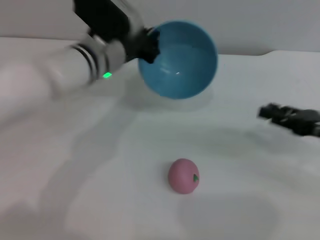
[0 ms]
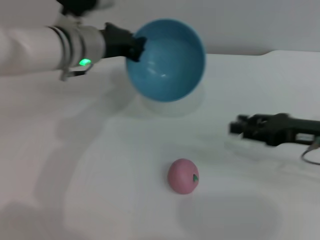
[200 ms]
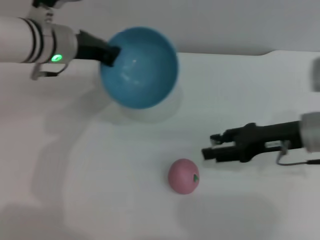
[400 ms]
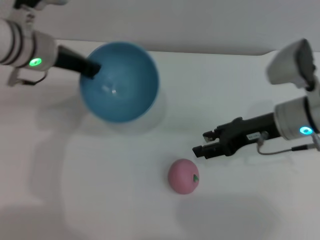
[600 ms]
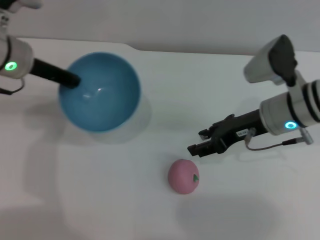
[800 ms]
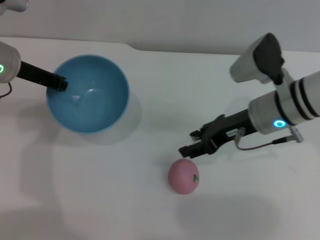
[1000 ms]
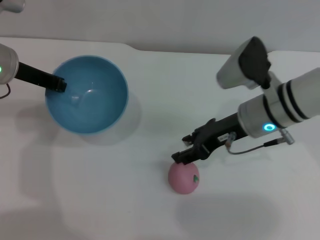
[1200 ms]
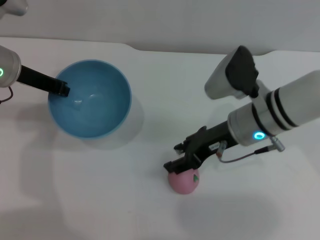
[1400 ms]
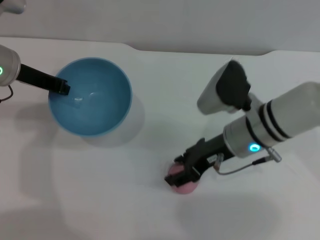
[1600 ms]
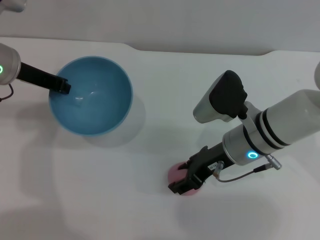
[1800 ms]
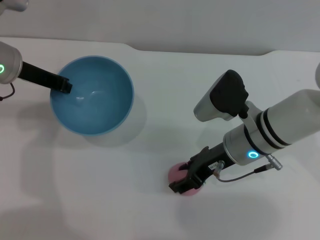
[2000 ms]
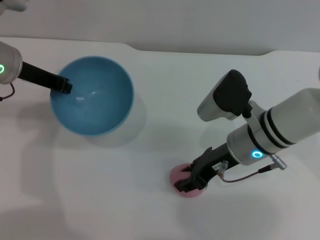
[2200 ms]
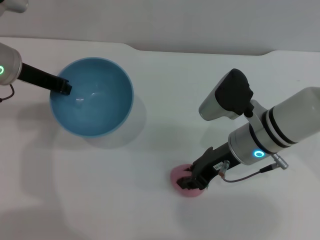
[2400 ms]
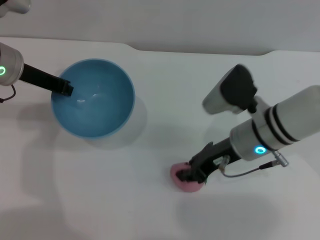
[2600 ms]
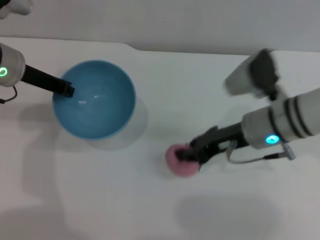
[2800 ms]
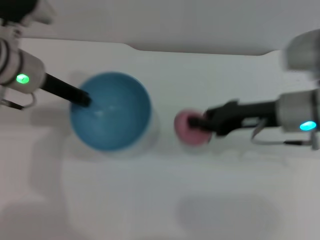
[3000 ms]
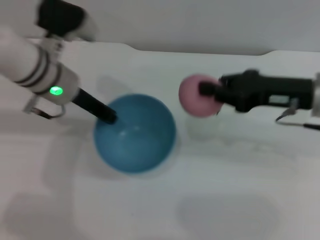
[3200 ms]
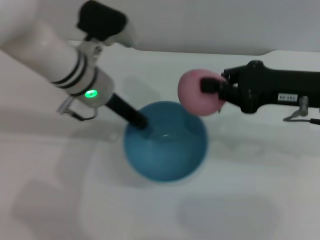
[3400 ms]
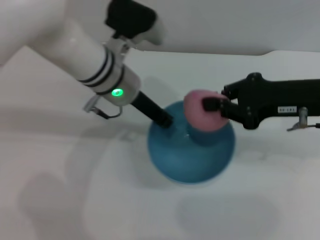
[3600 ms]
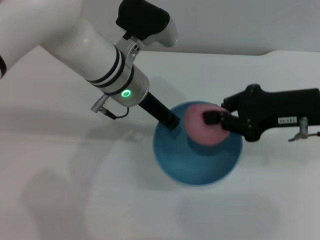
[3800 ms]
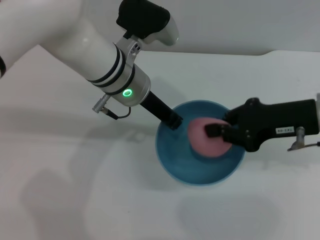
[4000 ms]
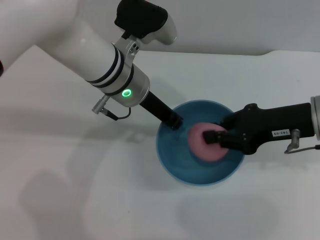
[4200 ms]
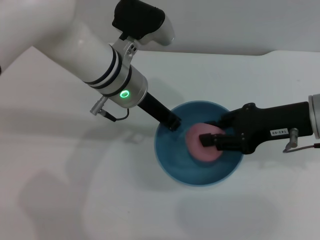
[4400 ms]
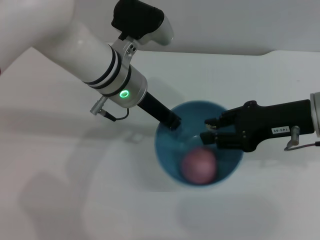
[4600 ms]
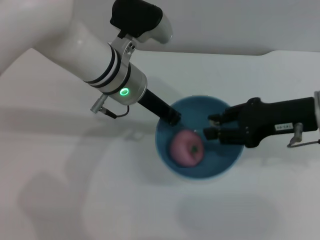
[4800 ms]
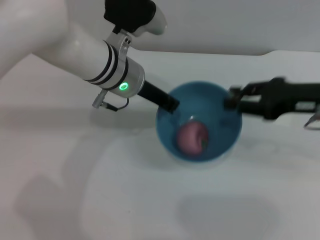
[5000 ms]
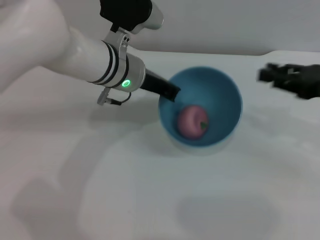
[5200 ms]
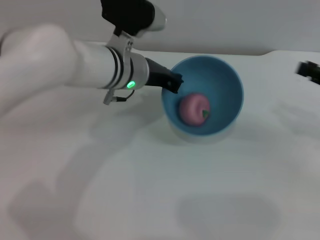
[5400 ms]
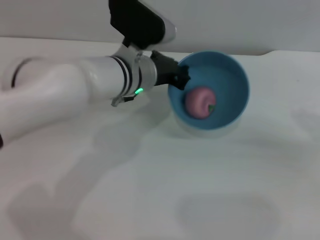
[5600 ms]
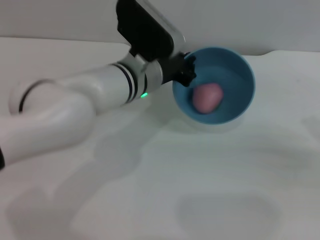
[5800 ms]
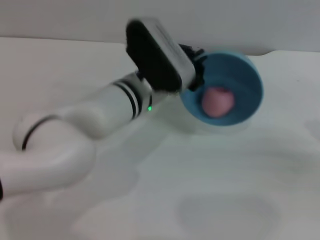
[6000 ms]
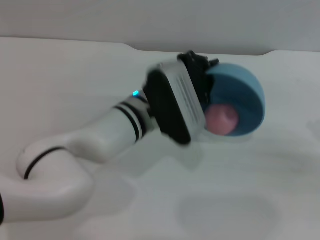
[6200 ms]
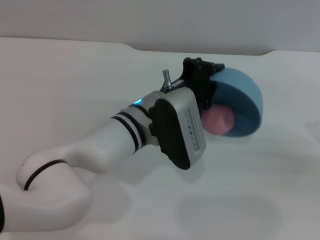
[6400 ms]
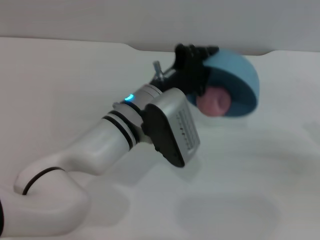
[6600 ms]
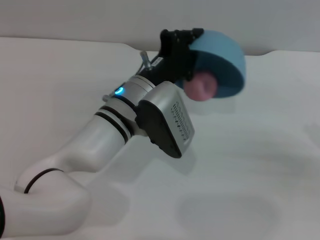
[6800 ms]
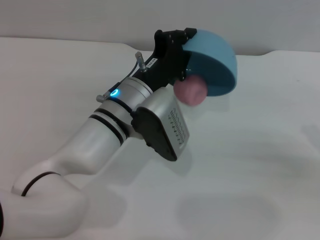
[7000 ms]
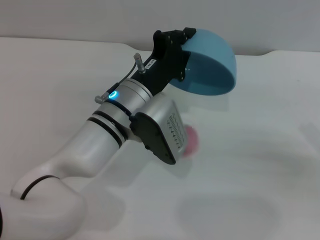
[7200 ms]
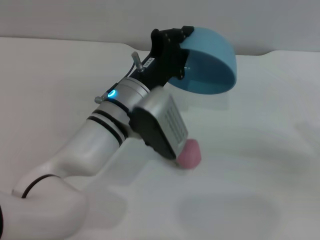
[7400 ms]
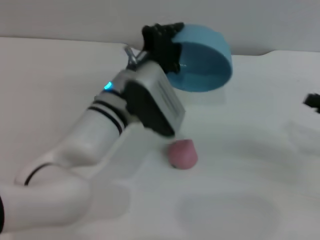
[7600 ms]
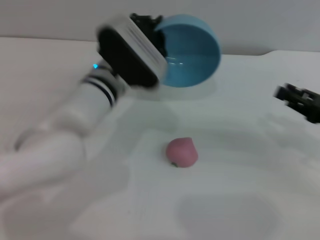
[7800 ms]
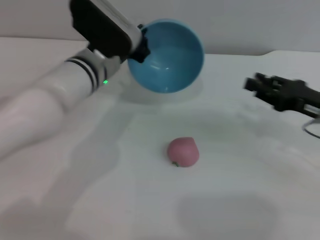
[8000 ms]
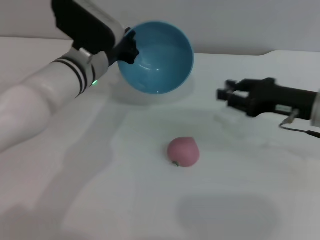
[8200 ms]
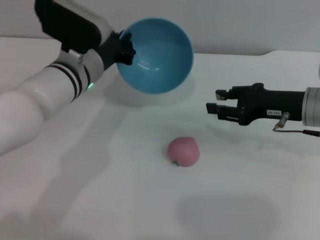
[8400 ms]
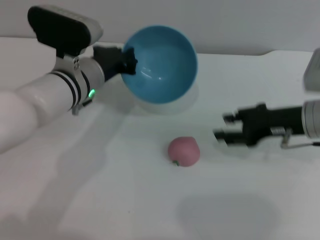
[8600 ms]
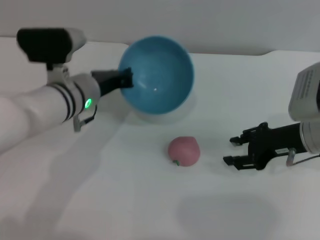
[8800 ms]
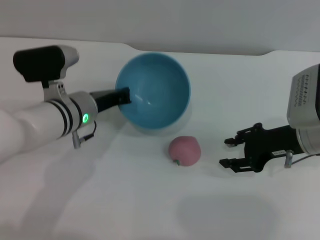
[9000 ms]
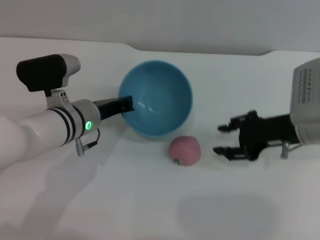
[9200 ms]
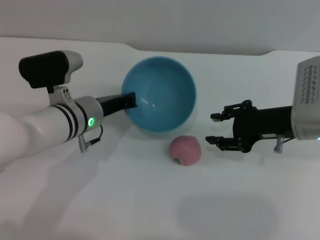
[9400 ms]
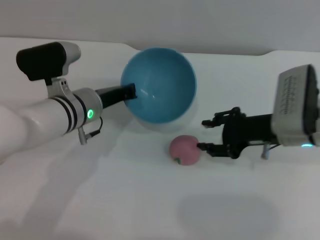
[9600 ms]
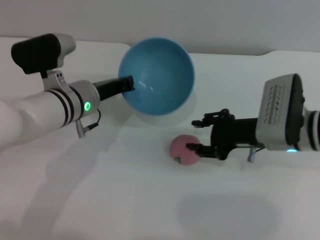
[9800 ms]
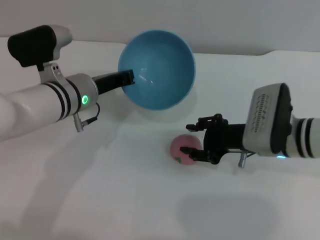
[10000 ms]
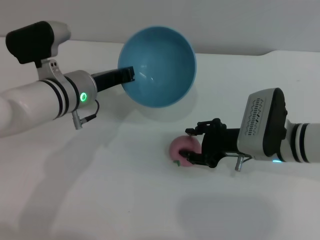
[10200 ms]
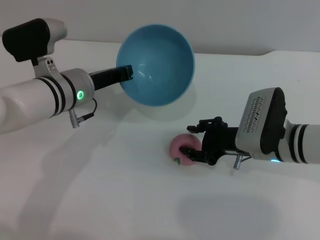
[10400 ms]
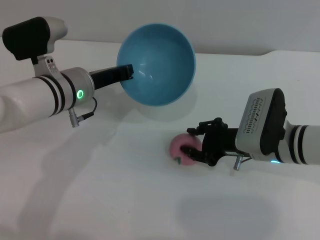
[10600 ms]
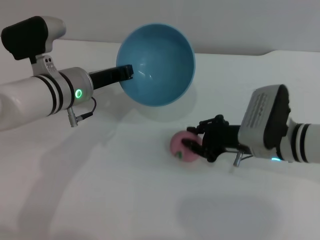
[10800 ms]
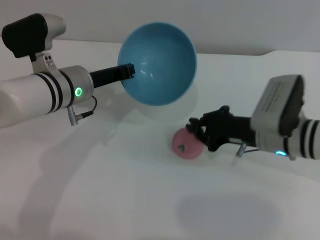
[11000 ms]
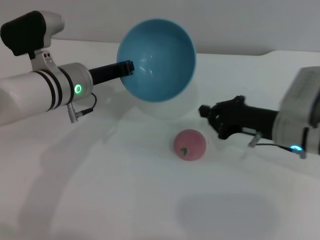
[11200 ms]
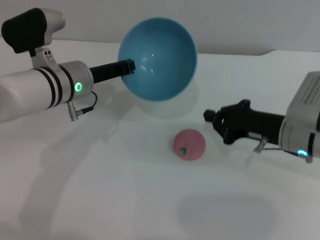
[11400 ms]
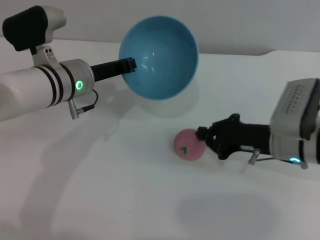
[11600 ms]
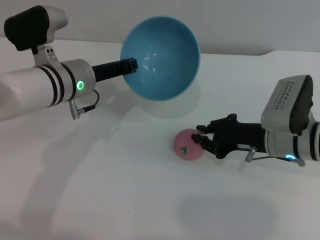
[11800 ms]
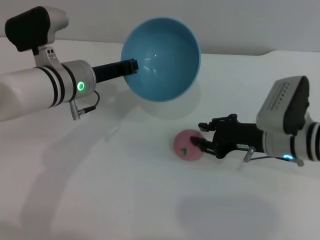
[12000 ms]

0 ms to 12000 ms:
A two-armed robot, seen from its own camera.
Task of the whole recording: put the peach into the blue bowl and pour it out repeatedly.
Step, 0 ms to 2800 ms: Pick up the peach with the right gripper.
Step, 3000 ms to 4800 ms: Place the peach into the bowl.
Step, 5000 ms to 7600 ms: Pour the peach out of bowl.
0 ms to 1600 ms: Both grippers move to the left, approximately 15 cm.
1600 ms to 3000 ms: The right gripper is displaced to the right by some 10 cm, and closes its fingers.
3000 ms to 4400 ms: The left gripper travels to the right by approximately 15 cm.
4400 ms to 6000 ms: The left gripper moves some 5 cm; the right gripper travels to the right and backward by about 20 cm.
7600 ms to 9000 ms: The left gripper moves to the left, roughly 10 cm; the right gripper heads to the left and forward, covering roughly 15 cm.
9000 ms to 10400 ms: The right gripper heads to the left, covering about 5 cm.
10400 ms to 12000 ms: The right gripper closes its fingers.

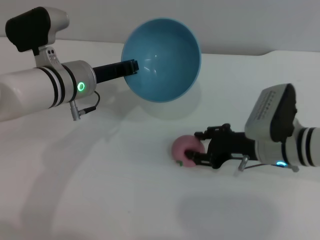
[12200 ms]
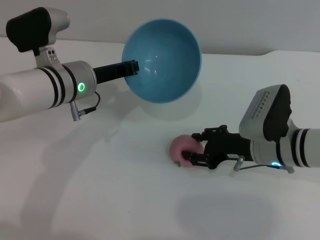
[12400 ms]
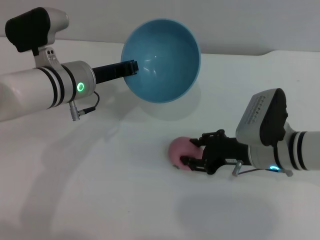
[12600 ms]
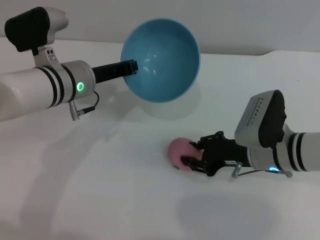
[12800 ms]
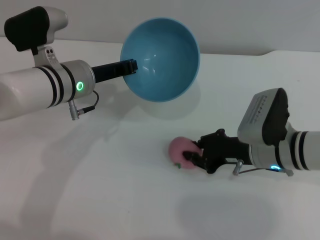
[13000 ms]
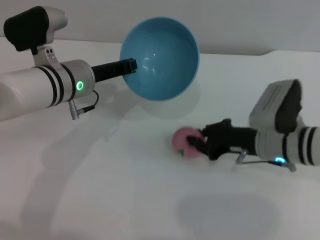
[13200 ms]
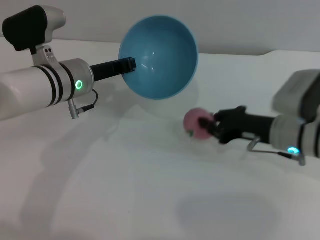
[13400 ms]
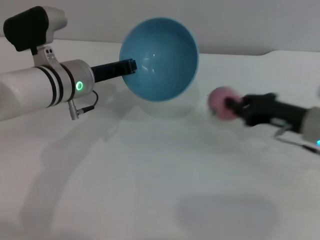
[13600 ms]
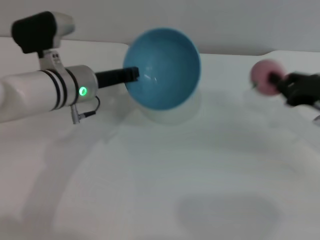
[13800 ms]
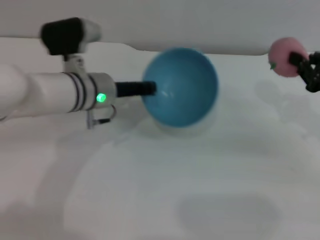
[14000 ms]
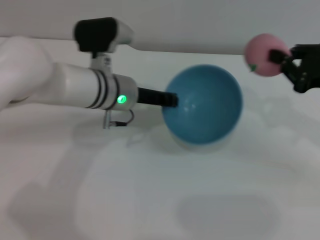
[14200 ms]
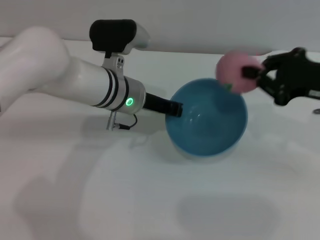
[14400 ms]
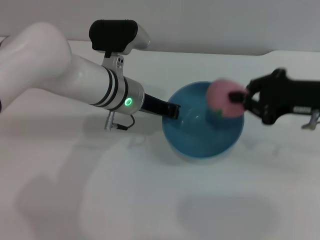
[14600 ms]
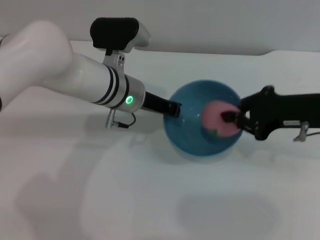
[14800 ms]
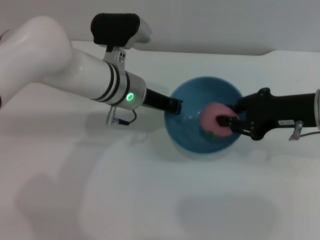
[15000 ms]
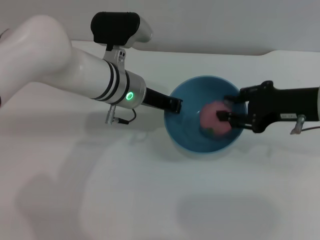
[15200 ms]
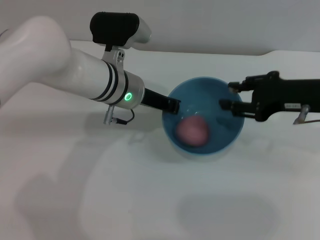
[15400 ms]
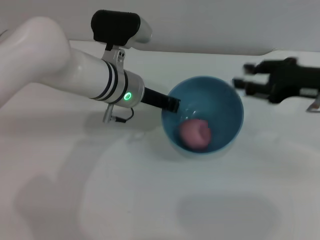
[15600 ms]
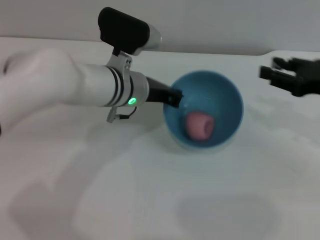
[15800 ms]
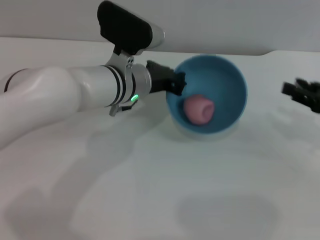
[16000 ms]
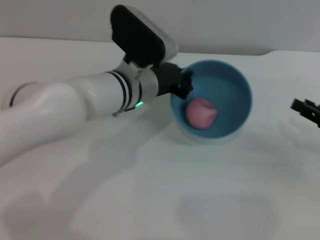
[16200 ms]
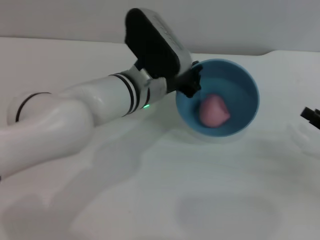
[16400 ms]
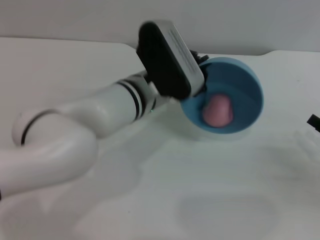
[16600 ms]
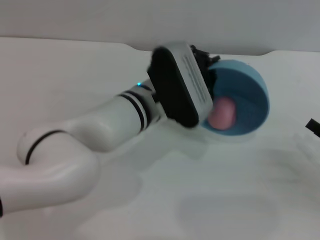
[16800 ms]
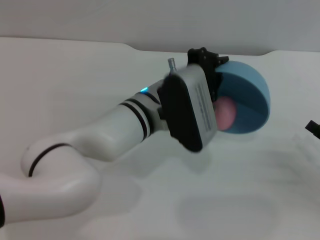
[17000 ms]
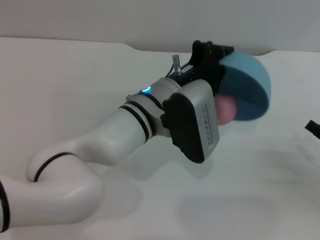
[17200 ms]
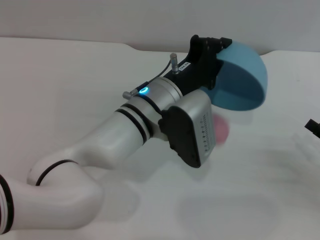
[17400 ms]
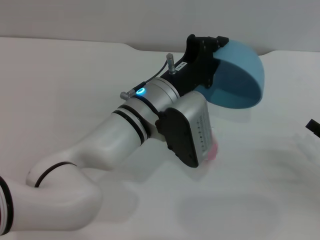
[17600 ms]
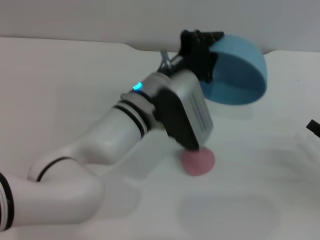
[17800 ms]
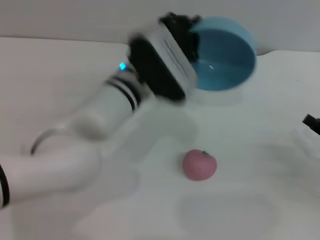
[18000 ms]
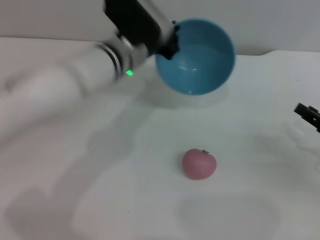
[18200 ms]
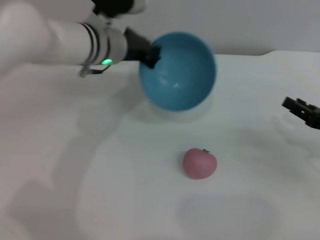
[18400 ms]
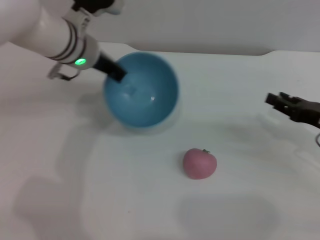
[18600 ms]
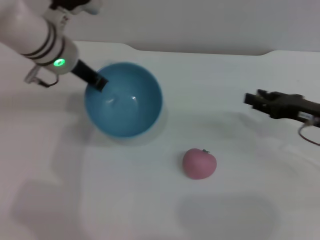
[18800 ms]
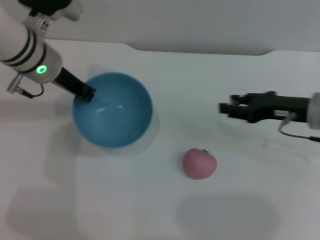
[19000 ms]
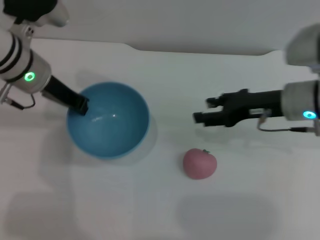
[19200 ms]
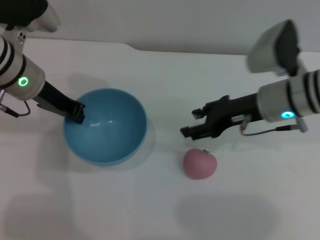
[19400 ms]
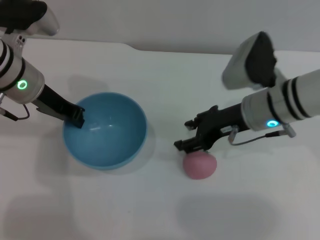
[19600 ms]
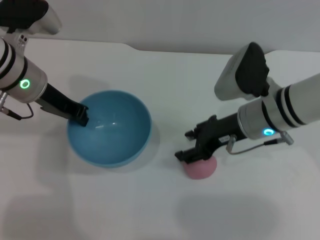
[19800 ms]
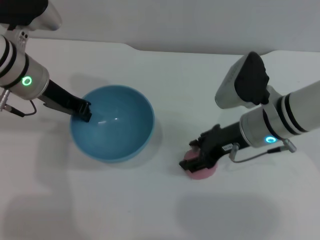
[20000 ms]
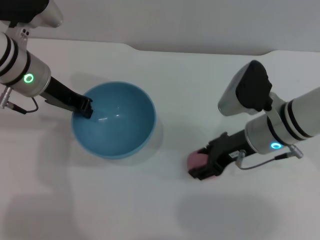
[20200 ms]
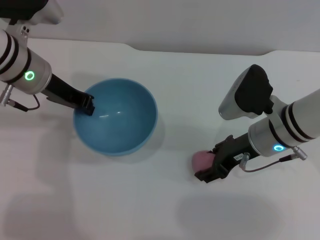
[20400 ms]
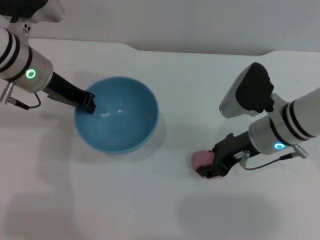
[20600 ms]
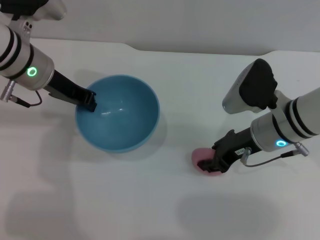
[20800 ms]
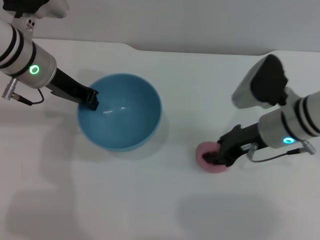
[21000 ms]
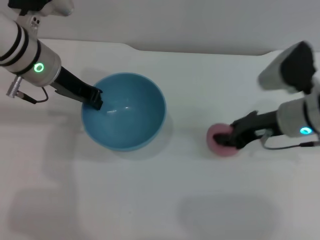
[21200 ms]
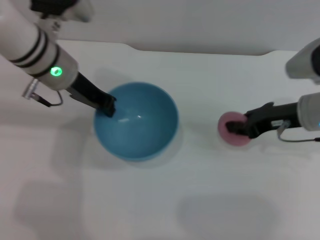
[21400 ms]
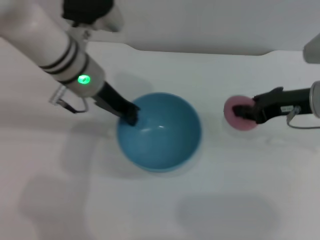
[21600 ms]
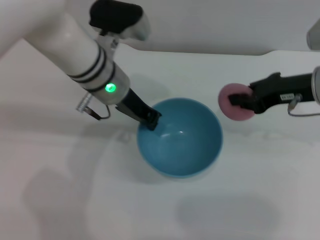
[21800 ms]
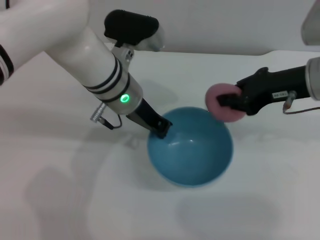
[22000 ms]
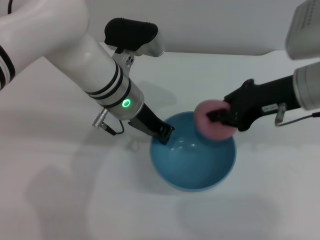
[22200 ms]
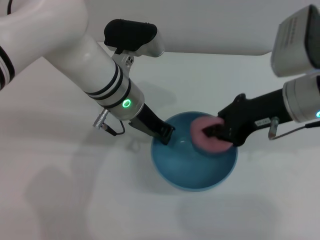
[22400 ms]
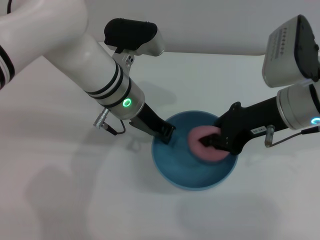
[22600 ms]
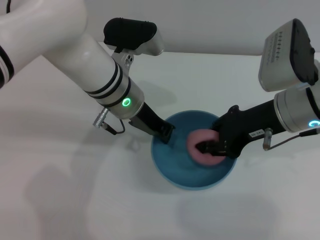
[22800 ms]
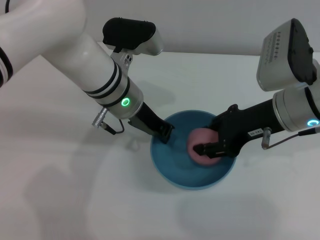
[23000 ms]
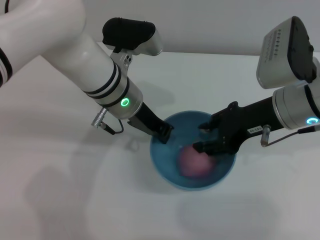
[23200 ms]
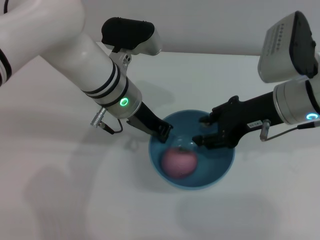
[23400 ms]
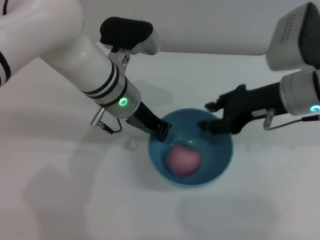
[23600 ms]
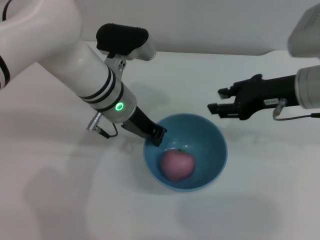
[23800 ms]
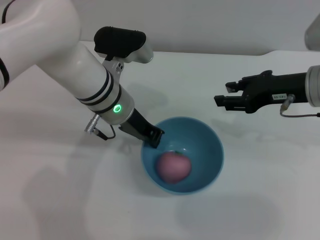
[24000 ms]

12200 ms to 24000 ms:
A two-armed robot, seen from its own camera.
Task of the whole recording: put the peach into the blue bowl and pour it out repeatedly.
Step, 13800 ms to 15400 ms: Place the peach into the bowl.
Step, 15600 ms to 18000 ms: Pour the peach out of bowl.
Step, 18200 ms to 21600 ms: Pick up the peach with the right gripper.
Step, 21800 ms to 23600 ms: Place the peach into the bowl.
12200 ms to 13600 ms: The right gripper travels to the right by about 5 cm, and closes.
13600 ms to 15200 ms: The right gripper moves upward, some 10 cm; the left gripper moves to the right, about 5 cm.
15200 ms to 16600 ms: The right gripper shifts roughly 20 cm to the right, downward and backward; the left gripper ends up roughly 5 cm from where it was.
16600 ms to 18200 ms: The left gripper moves forward, about 5 cm.
18200 ms to 19600 ms: The left gripper goes some 15 cm to the left; the right gripper heads to the left and forward, covering approximately 20 cm.
19600 ms to 21000 ms: The right gripper closes up.
21000 ms to 22600 ms: The left gripper goes roughly 10 cm to the right. Meanwhile the right gripper goes approximately 5 cm upward, and closes.
22600 ms to 24000 ms: The right gripper opens up.
